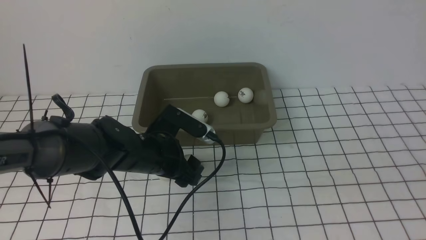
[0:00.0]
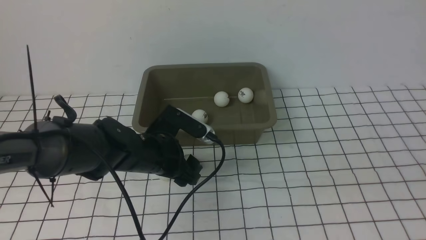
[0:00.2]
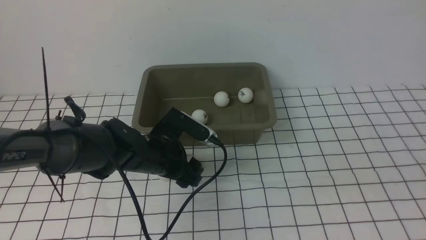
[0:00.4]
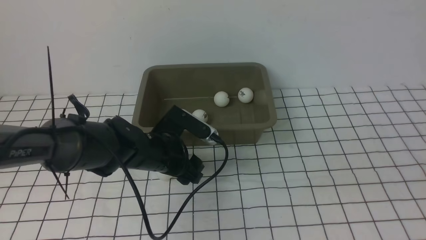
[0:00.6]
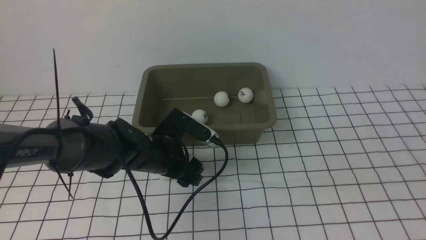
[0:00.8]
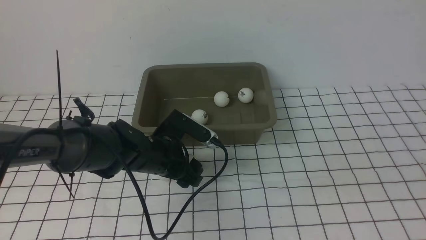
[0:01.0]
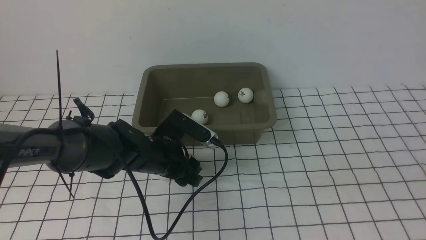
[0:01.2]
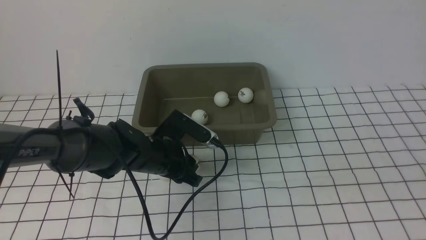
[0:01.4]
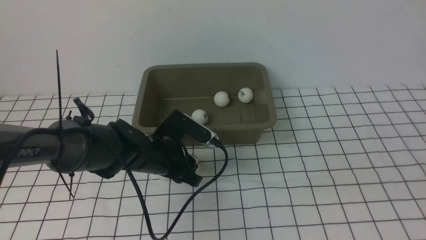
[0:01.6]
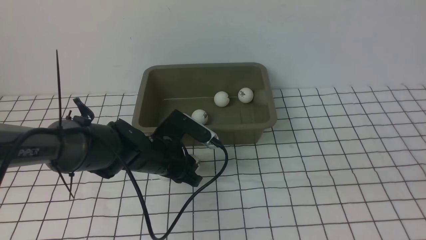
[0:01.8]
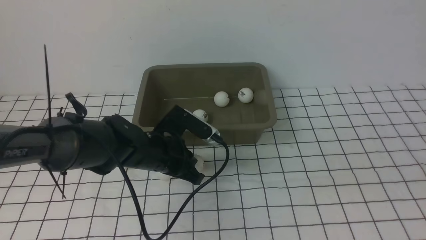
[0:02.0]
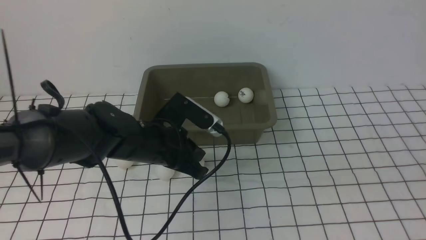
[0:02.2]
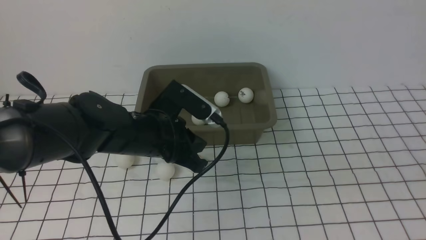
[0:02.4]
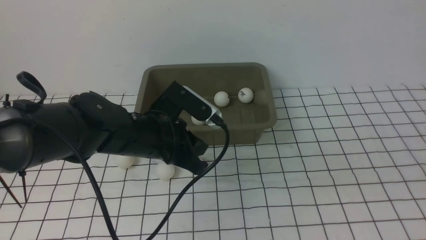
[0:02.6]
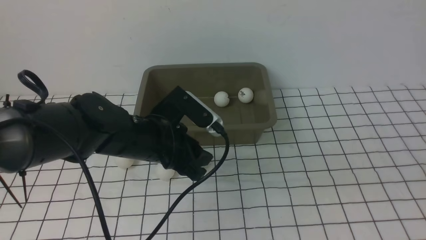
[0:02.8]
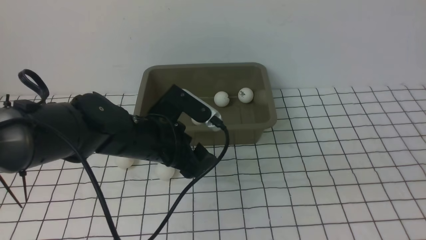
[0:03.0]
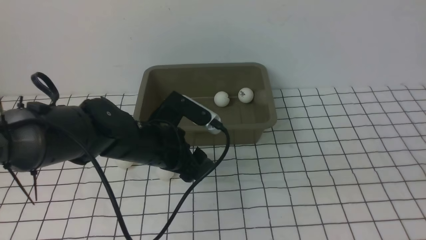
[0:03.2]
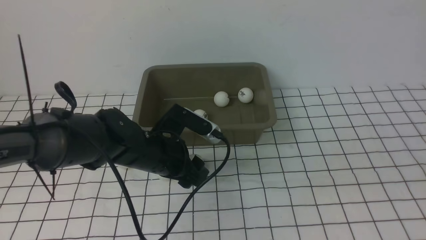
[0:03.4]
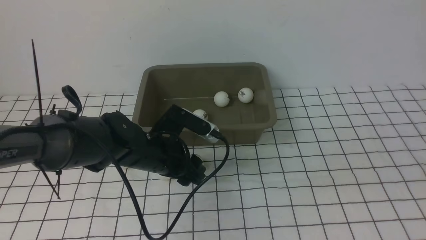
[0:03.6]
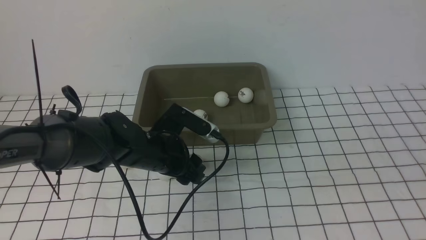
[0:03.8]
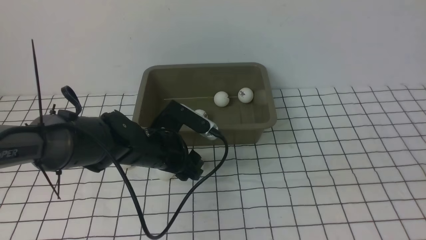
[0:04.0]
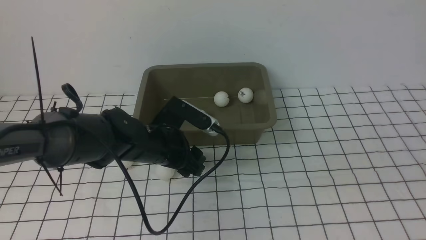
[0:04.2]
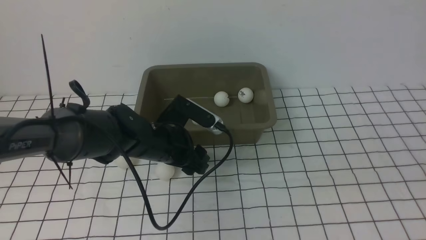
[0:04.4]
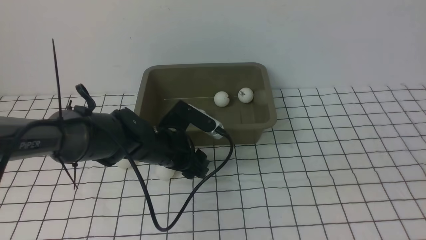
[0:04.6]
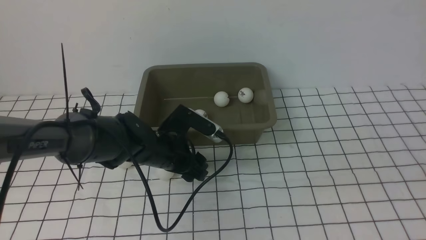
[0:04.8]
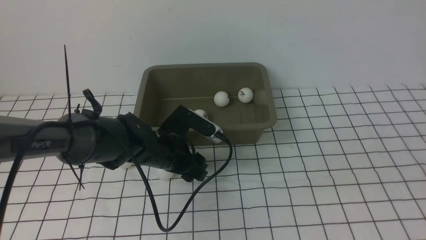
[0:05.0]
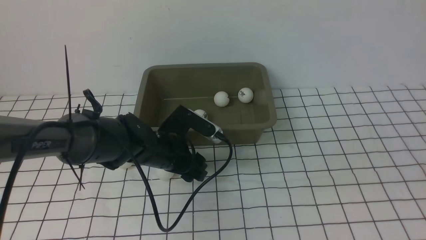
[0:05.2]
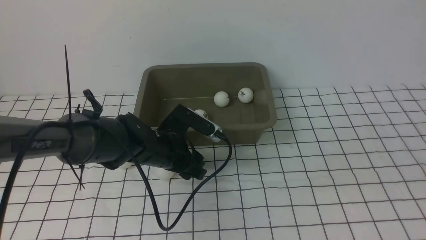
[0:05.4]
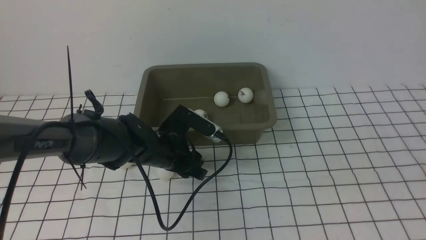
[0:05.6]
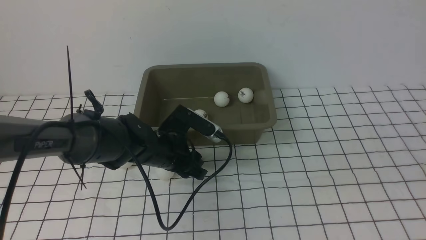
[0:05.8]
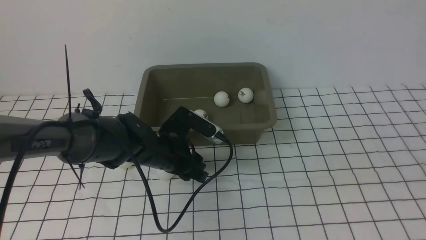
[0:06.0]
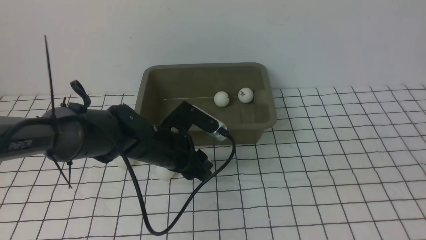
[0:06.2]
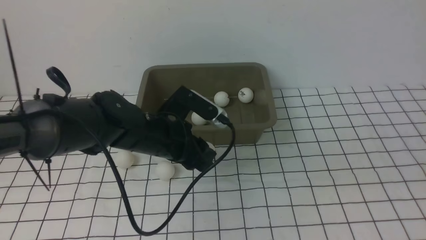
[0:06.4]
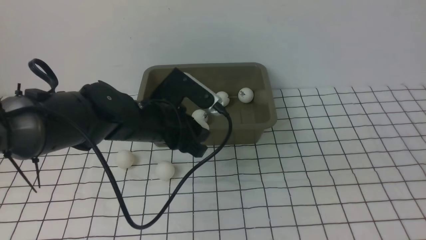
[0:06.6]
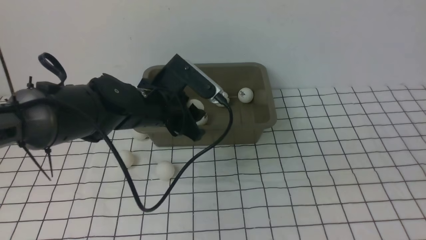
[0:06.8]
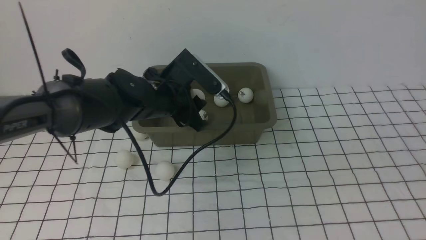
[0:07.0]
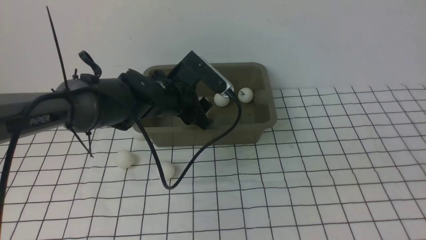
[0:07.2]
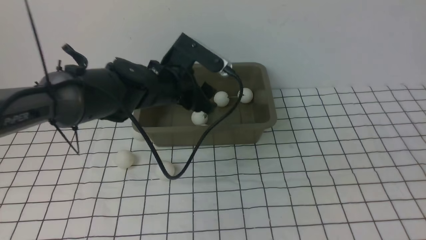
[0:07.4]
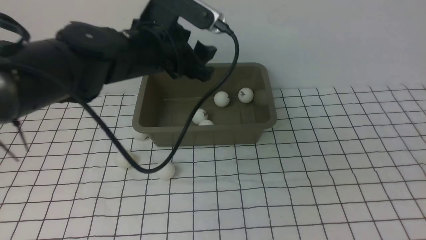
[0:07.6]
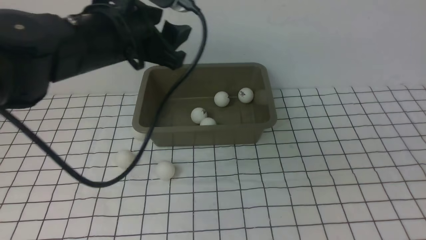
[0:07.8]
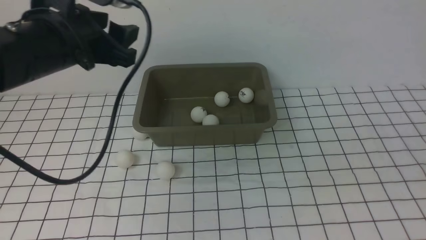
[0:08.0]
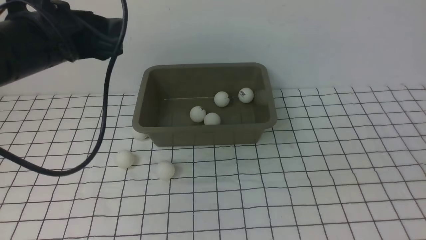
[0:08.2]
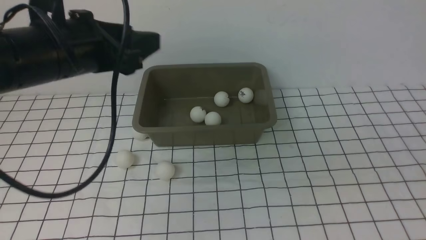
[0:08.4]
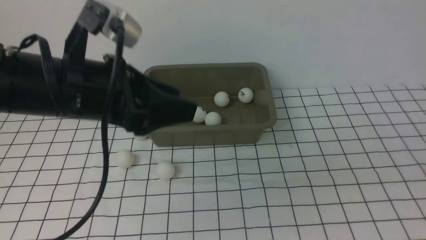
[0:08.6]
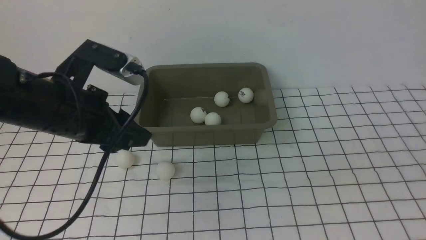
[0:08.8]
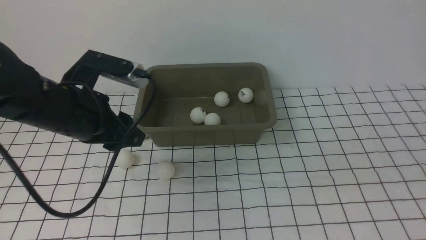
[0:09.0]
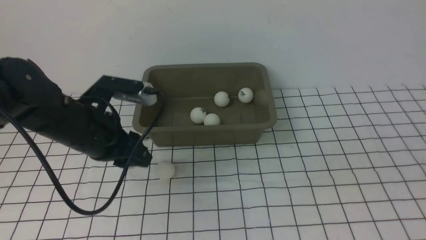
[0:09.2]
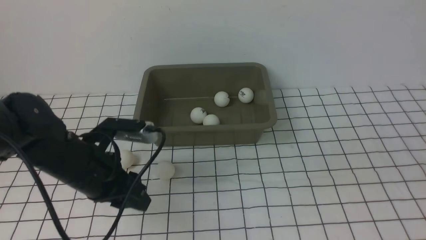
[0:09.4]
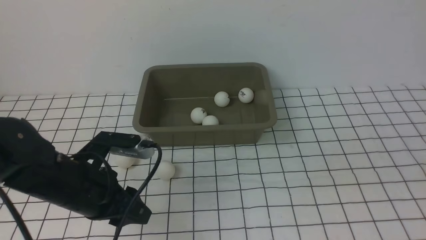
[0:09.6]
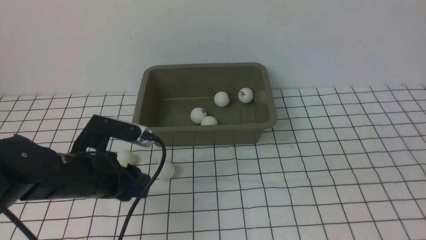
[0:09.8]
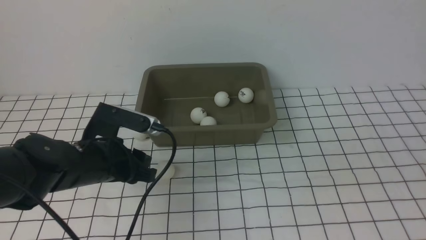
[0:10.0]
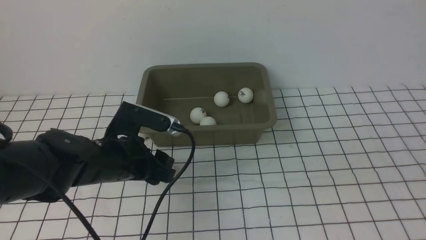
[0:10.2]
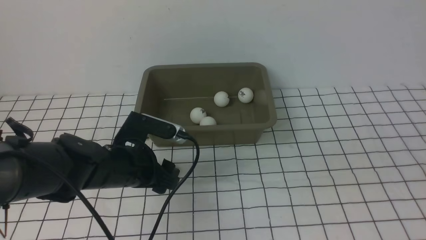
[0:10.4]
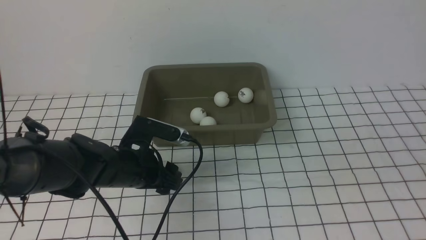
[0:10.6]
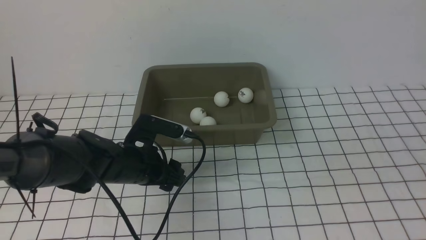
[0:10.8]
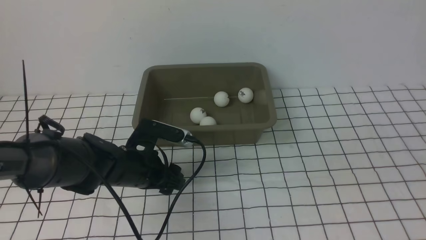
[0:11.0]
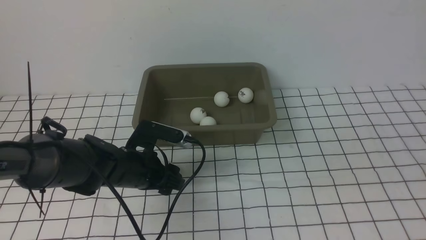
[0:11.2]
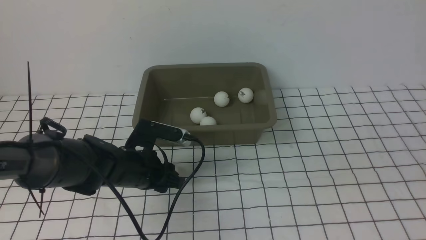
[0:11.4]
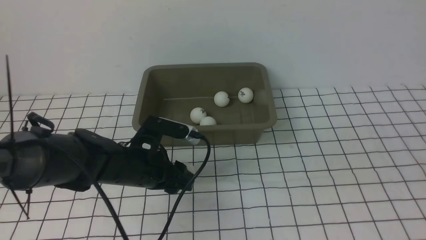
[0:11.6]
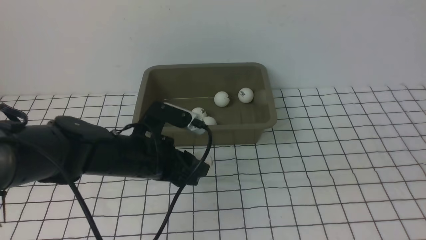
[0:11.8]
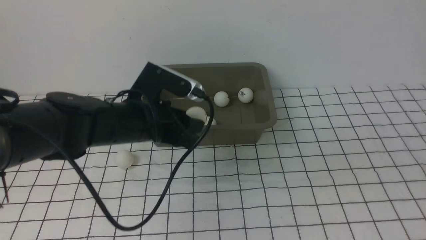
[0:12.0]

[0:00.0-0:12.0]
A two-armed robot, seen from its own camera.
Step, 0:00.0 to 0:06.2: use the left arm to clamp the table tennis ball closest to it.
Step, 0:06.4 to 0:07.4: use the left arm to put the table tennis ball into the box.
Step, 0:07.6 to 0:11.6: use the left arm to clamp the table tennis ball closest to it.
0:00.0 to 0:01.6: The left gripper closes up.
0:01.6 to 0:03.0: The left gripper shifts about 5 cm upward, and opens its fingers.
0:03.0 to 0:04.4: The left gripper moves about 5 cm.
0:04.4 to 0:06.0: The left gripper closes its fingers.
0:06.0 to 0:07.6: The left gripper heads upward, covering some 15 cm, and opens up.
0:07.6 to 0:09.0: The left gripper travels to the left and backward by roughly 10 cm, and closes.
0:09.0 to 0:10.4: The left gripper goes some 10 cm downward, and opens.
0:10.4 to 0:12.0: The left gripper moves upward, roughly 5 cm, and closes up.

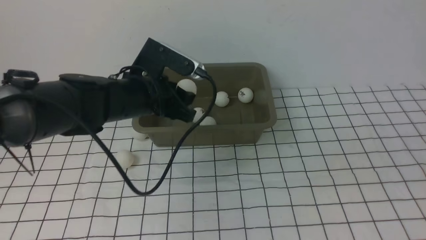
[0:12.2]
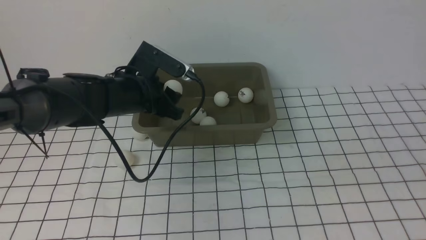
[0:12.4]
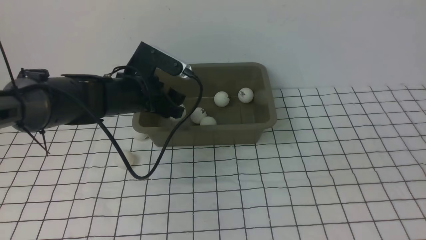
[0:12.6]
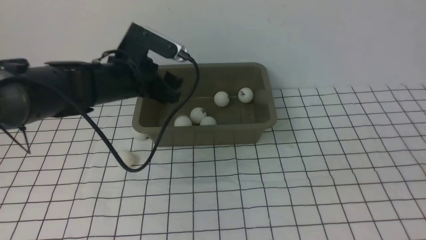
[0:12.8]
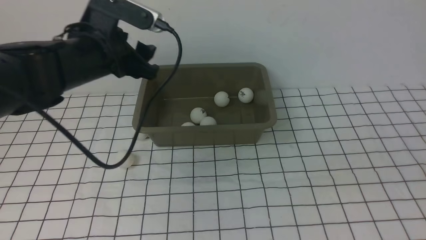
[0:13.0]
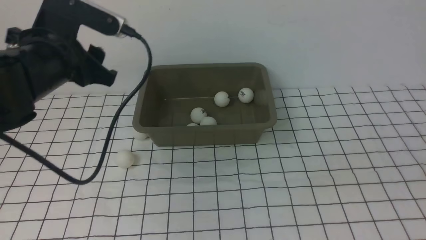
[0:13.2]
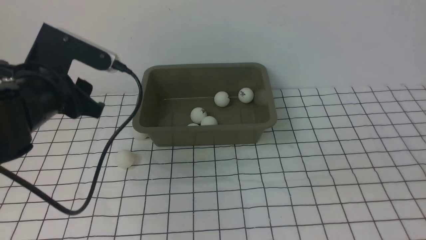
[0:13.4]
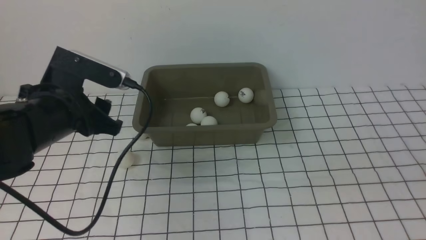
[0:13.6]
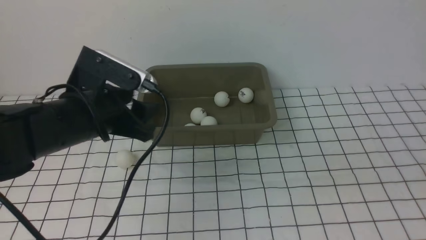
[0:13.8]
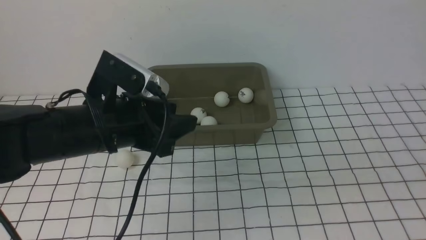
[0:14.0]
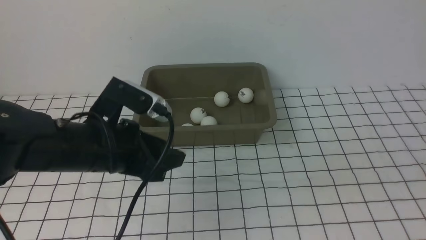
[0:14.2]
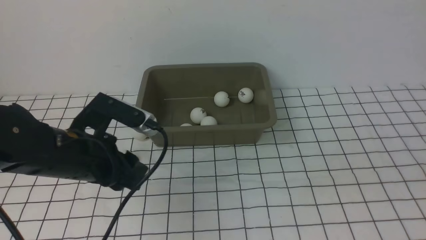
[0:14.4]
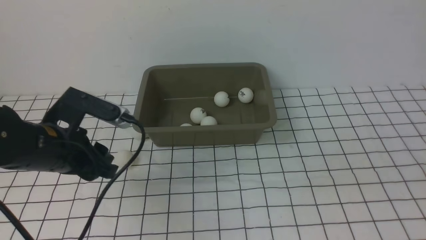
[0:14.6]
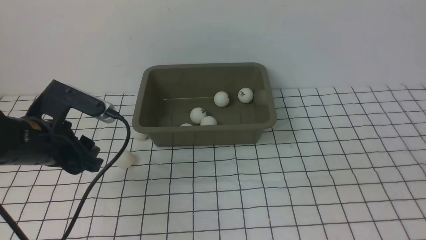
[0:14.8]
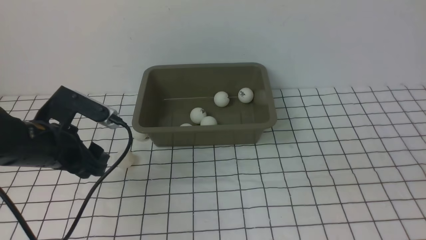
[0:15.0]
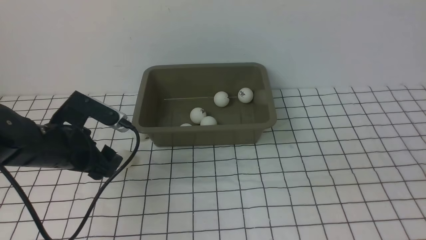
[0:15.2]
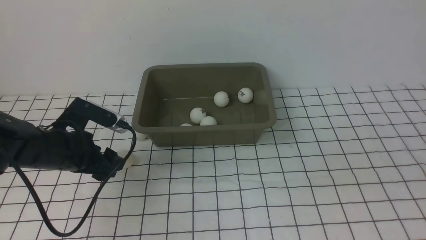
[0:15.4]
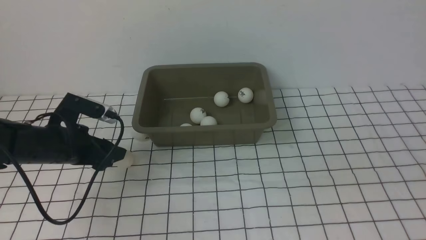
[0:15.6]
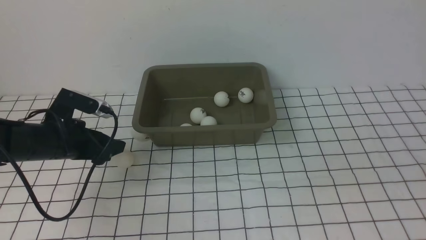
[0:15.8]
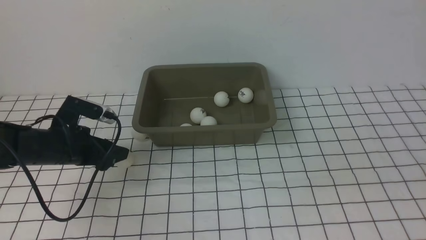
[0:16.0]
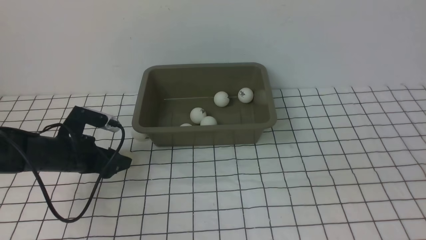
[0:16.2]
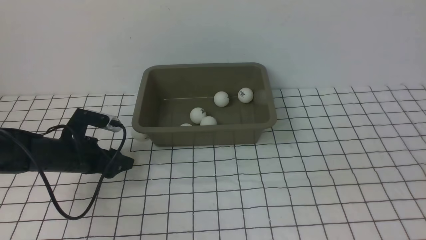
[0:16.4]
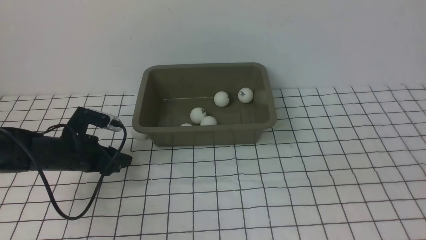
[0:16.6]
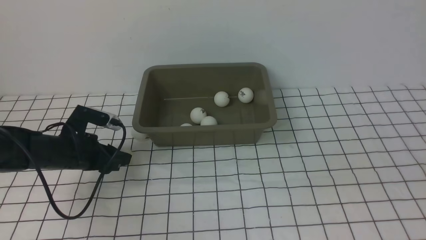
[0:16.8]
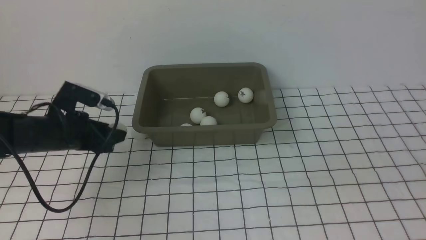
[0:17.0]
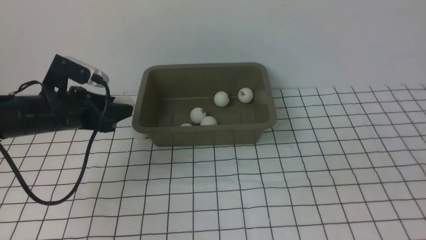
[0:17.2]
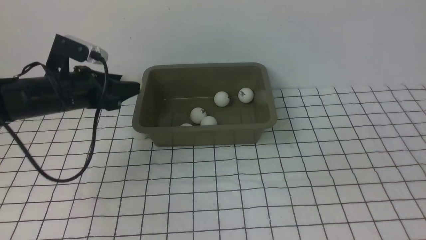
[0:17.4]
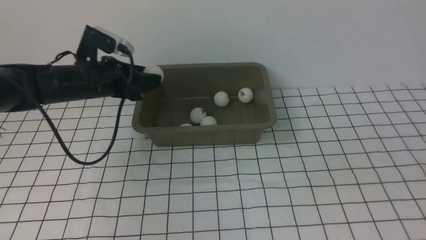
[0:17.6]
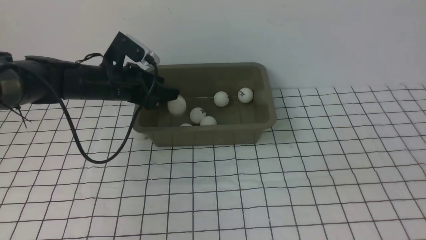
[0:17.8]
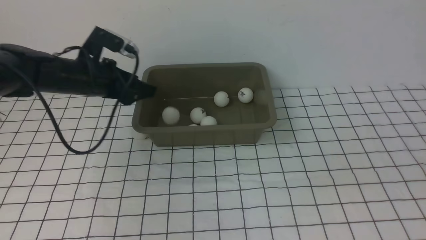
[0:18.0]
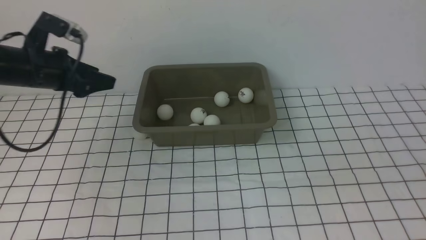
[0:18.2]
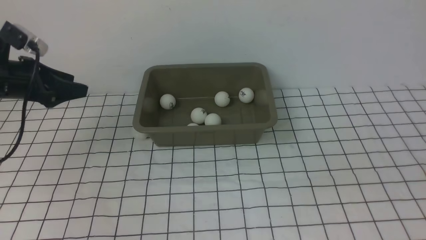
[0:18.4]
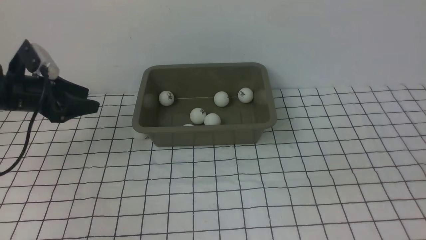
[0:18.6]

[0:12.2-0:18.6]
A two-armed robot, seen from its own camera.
Step, 0:12.2 to 0:12.6: use the left arm to put the table tennis ball into the box.
Step, 0:13.0 to 0:17.0: use the left arm to clamp the table tennis ball closest to it.
Step, 0:17.2 to 0:18.0: use the left arm to put the table tennis ball into the box.
0:12.2 to 0:13.8: The left gripper heads backward and to the left, covering roughly 10 cm.
0:13.8 to 0:15.4: The left gripper heads downward and to the left, covering roughly 10 cm, and opens its fingers.
0:15.4 to 0:17.0: The left gripper closes up.
0:17.0 to 0:18.6: The left gripper travels to the left by about 10 cm, and opens up.
